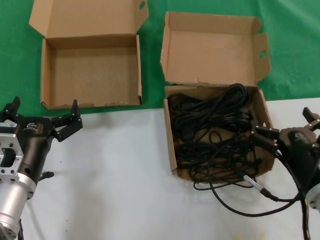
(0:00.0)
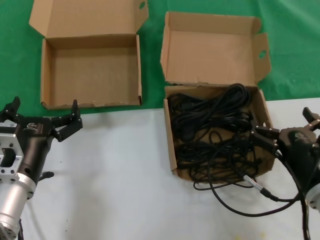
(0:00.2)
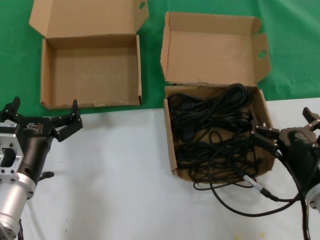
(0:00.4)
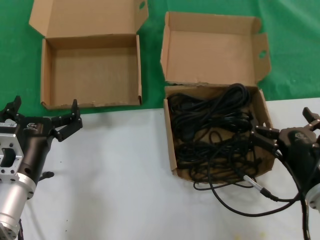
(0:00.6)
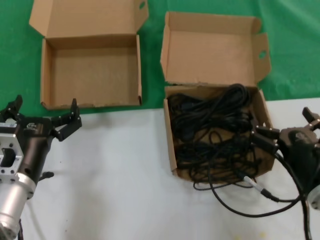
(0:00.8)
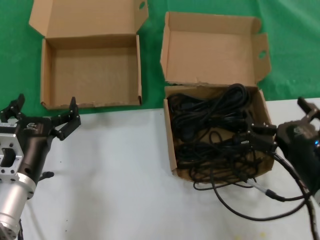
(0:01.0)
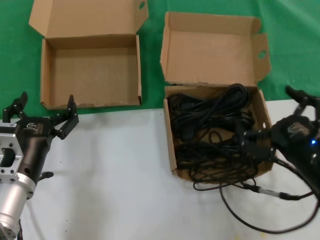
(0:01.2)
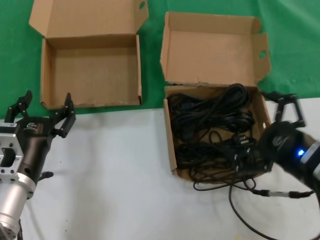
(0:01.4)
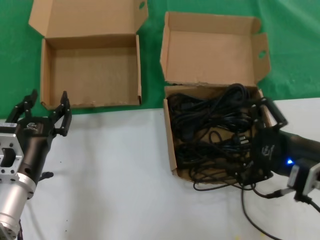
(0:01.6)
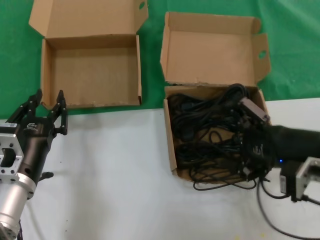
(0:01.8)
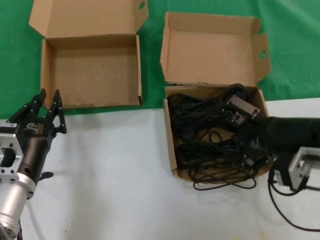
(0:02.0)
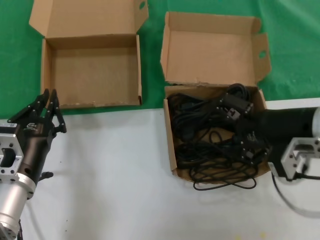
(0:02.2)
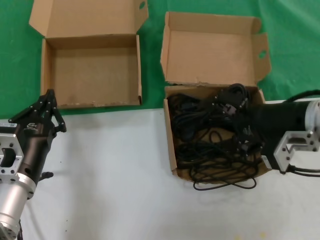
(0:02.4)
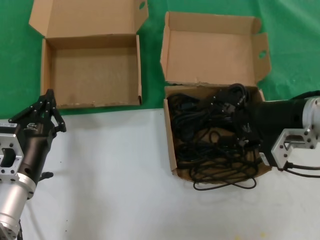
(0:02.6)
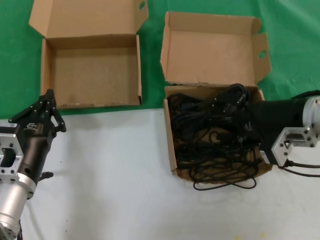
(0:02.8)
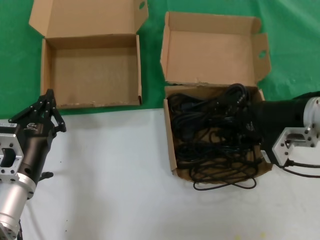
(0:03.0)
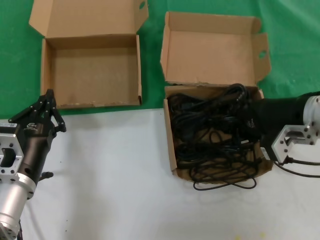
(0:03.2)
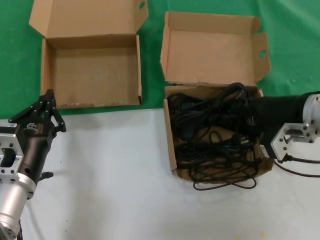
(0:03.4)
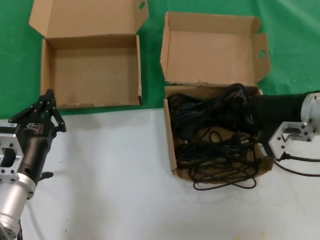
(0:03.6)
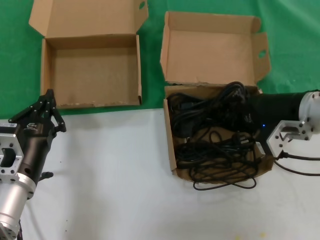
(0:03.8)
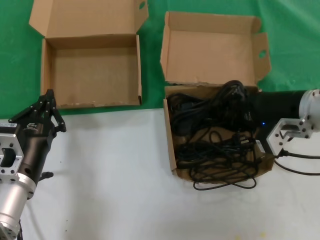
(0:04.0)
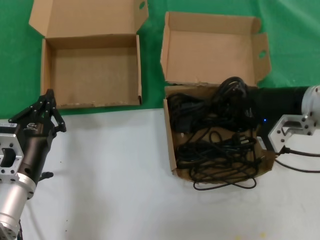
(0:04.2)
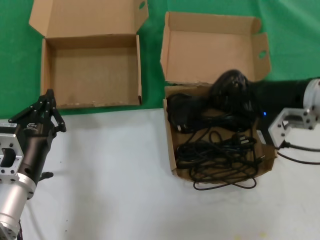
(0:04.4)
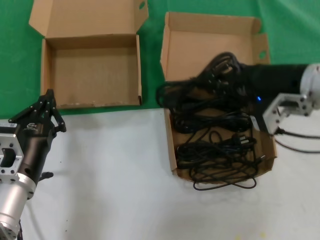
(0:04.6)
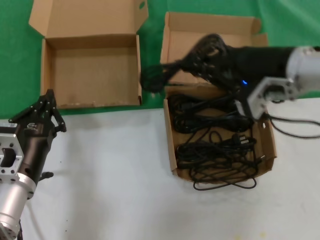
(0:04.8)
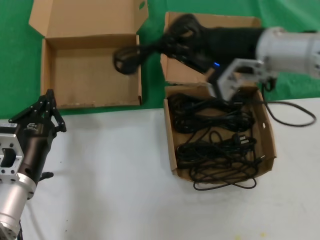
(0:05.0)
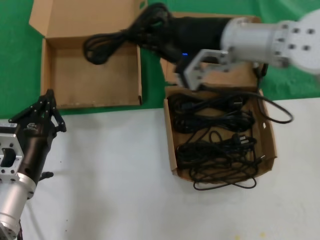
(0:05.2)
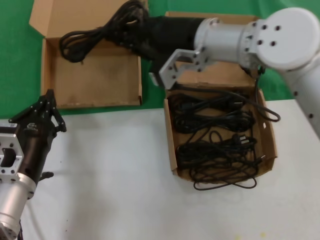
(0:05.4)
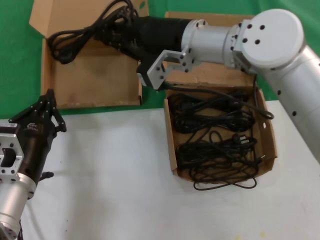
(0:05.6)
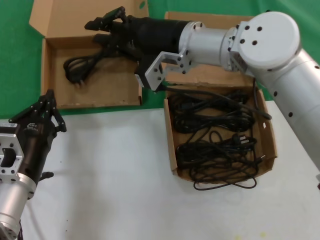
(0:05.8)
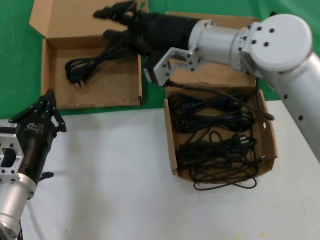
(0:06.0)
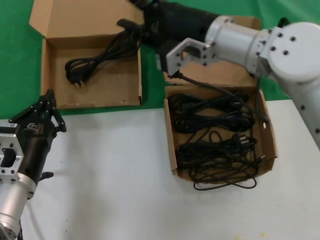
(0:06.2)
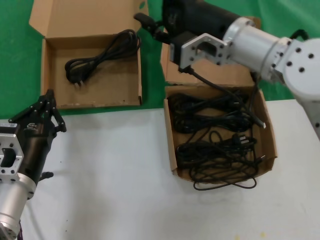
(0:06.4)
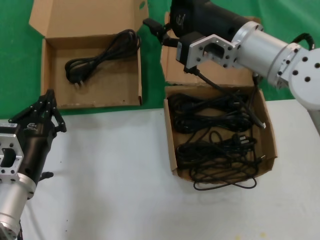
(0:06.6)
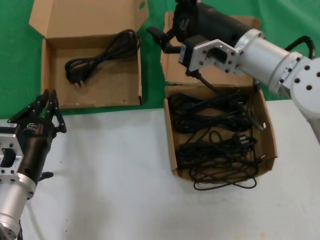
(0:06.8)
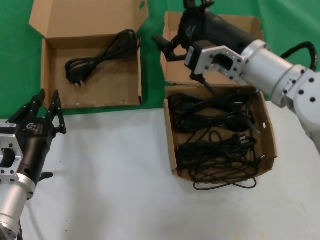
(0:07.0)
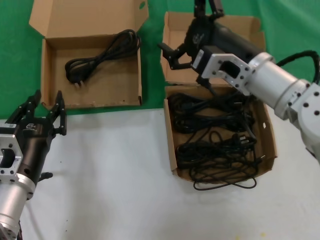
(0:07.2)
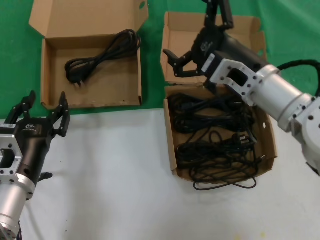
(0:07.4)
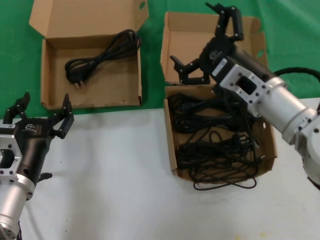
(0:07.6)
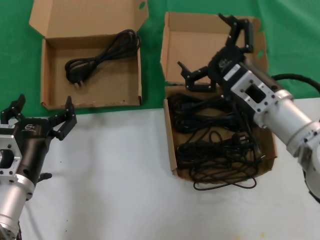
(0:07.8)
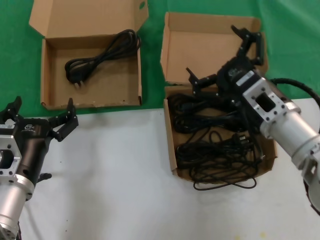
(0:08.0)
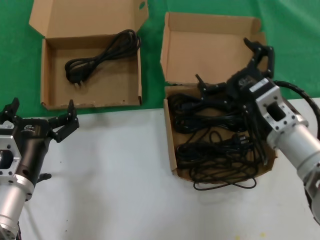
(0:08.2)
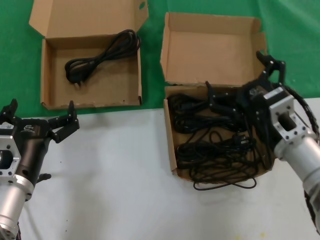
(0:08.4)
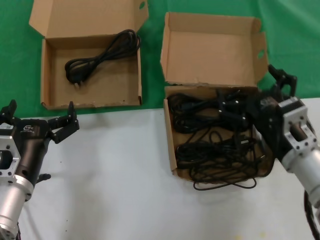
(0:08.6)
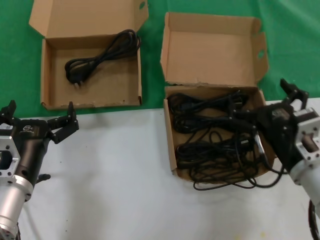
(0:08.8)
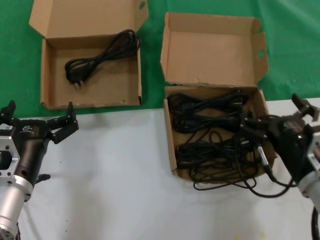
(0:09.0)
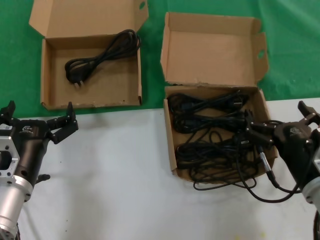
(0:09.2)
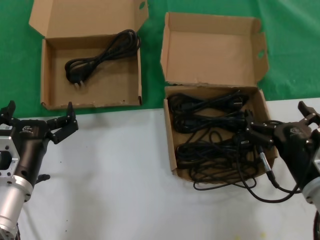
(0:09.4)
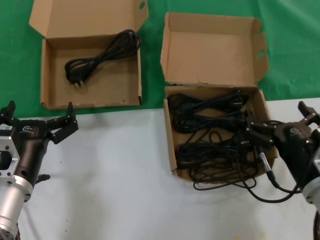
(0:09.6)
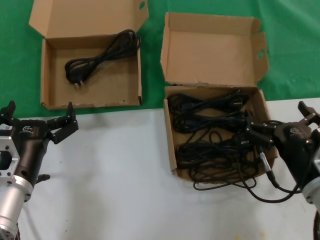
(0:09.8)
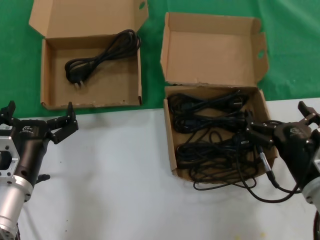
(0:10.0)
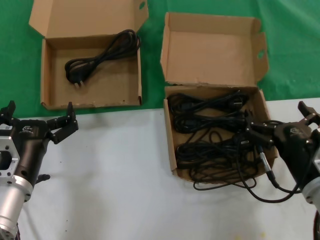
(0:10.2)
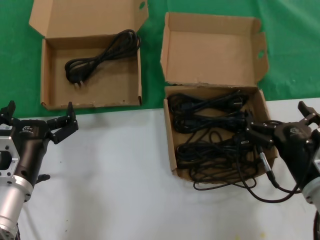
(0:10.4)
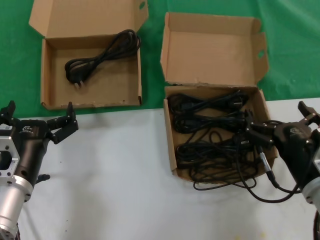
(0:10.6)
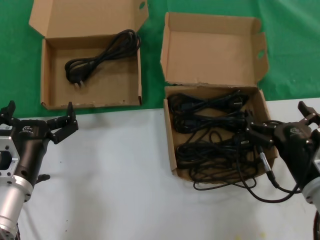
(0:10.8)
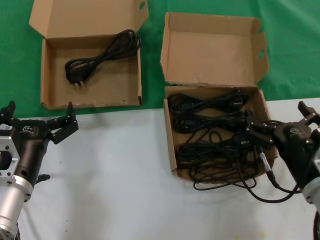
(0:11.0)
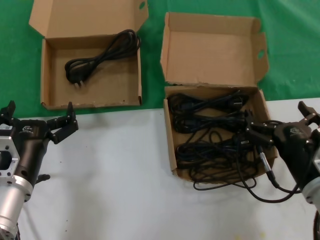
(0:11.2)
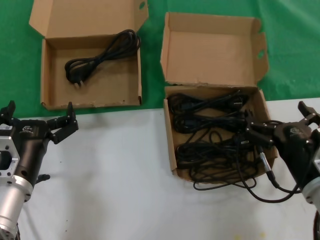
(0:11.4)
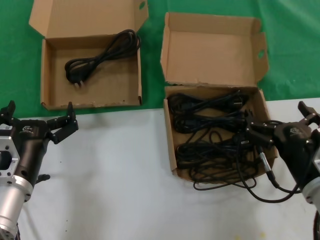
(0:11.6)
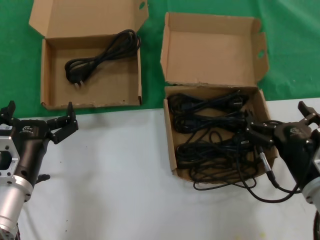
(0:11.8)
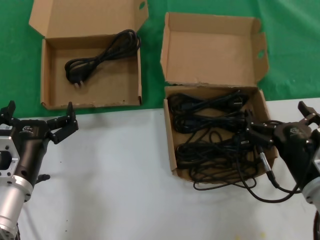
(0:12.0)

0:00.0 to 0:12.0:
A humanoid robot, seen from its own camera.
Task of the whole recording: take the parts from the box containing them and put them into an empty box.
Step, 0:00.0 to 0:03.2: Grasp the data cable.
Step, 0:03.4 to 0:05.8: Place the data cable in the another box.
0:00.0 to 0:01.6: The right hand moves upward, roughly 10 cm.
0:01.6 to 0:03.0: The right hand goes approximately 10 cm forward and upward.
0:03.0 to 0:04.4: The hands make only small movements.
0:04.4 to 0:06.0: The right hand moves to the left and forward, approximately 20 cm.
0:06.0 to 0:07.6: The right hand heads downward, to the right and backward, covering some 15 cm.
0:07.6 to 0:09.0: The right hand travels downward, backward and to the right by about 15 cm.
0:09.0 to 0:10.4: The hands make only small movements.
0:10.4 to 0:12.0: The two hands keep their place.

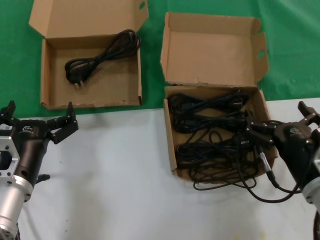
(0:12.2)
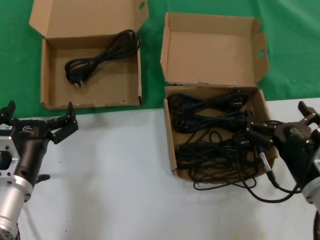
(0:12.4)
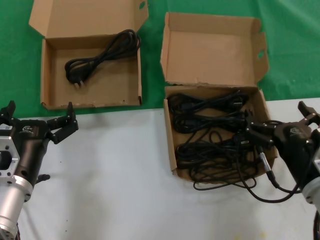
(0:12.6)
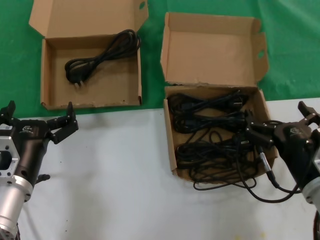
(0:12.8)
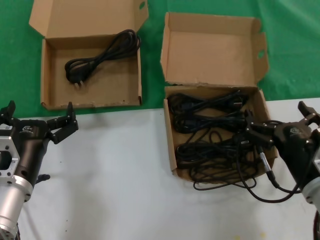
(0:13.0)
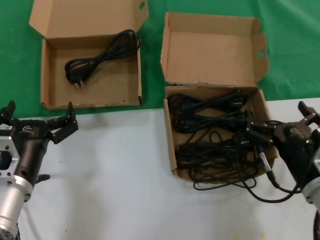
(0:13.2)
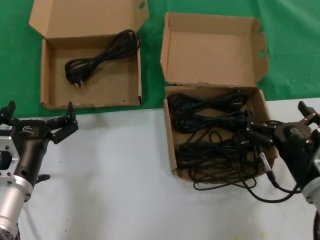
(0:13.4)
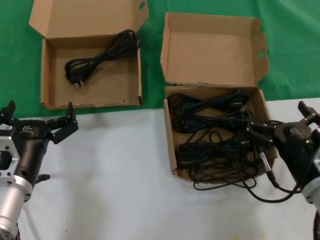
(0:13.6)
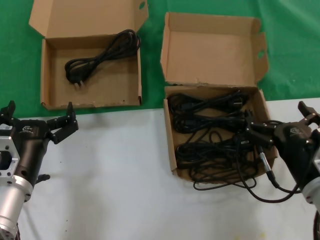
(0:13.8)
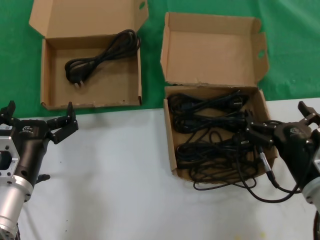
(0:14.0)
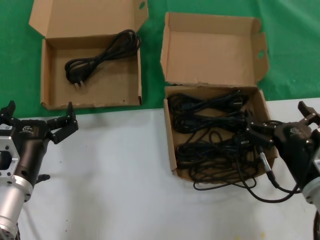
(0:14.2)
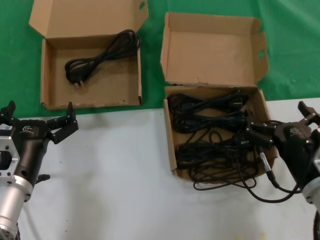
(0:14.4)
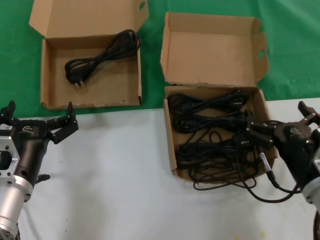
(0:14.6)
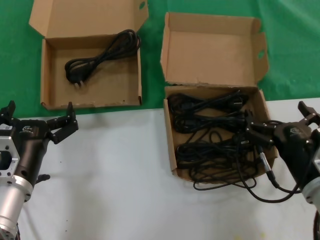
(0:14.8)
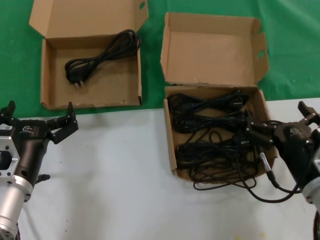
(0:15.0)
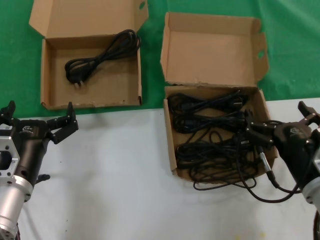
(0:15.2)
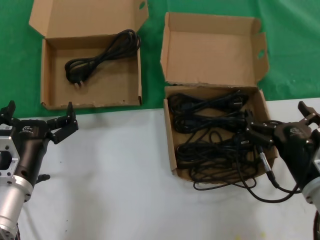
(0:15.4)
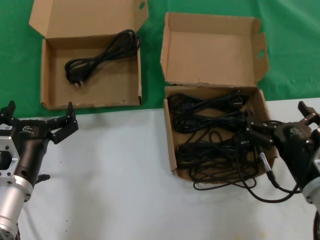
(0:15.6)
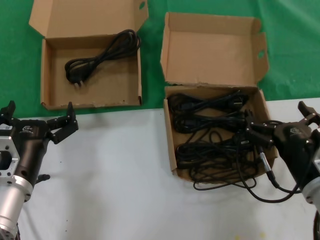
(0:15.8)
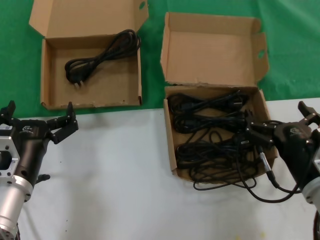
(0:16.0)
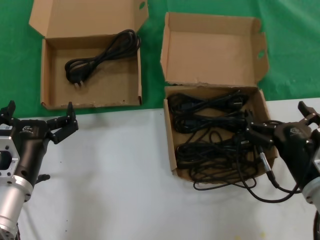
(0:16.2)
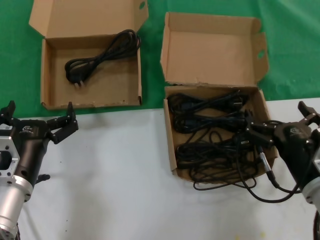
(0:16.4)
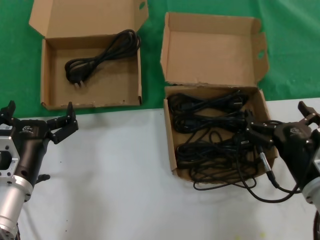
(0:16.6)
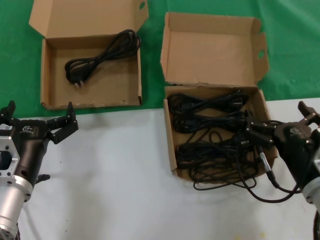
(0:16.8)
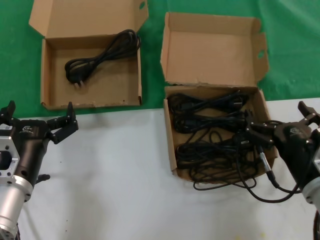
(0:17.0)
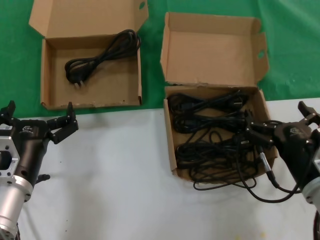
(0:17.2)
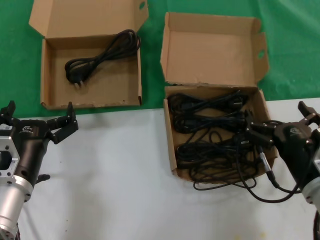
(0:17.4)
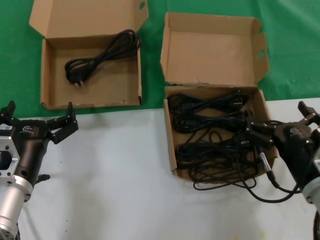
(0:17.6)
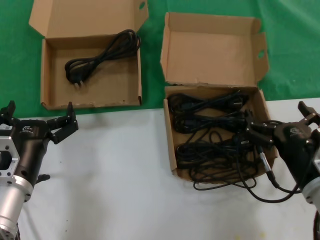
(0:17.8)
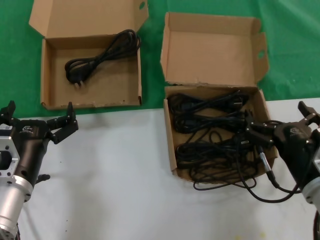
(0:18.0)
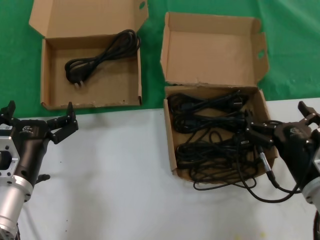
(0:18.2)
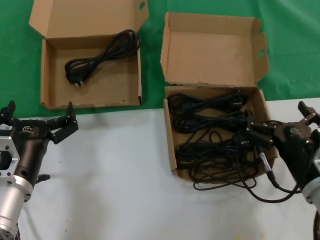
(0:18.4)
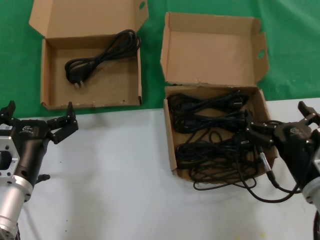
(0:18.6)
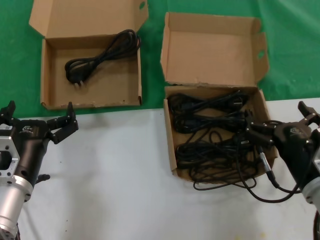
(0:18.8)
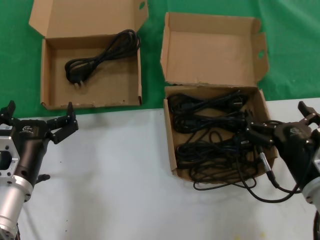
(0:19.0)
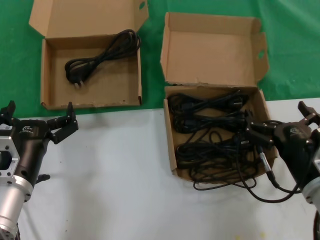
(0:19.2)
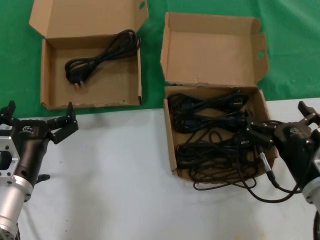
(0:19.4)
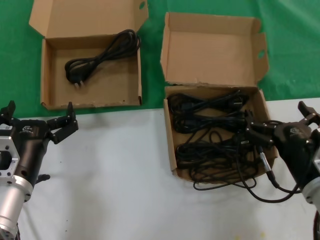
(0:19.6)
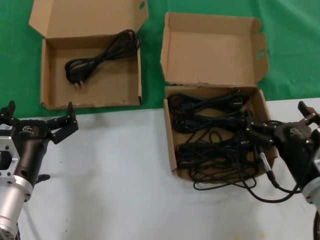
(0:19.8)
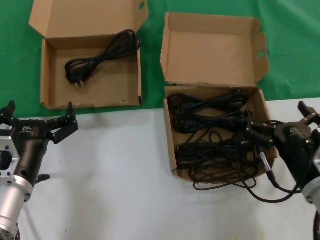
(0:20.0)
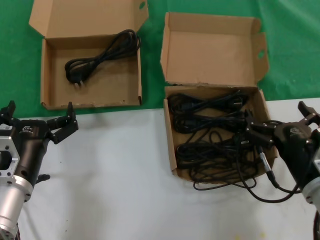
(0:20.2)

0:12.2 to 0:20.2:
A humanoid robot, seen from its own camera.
Task of the whole recording: take the parts from the box containing them and put them into an empty box.
0:12.2 to 0:20.2: Both hands stay put.

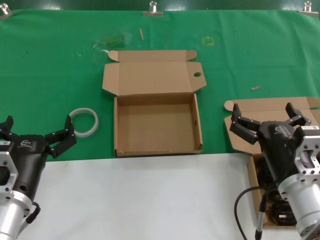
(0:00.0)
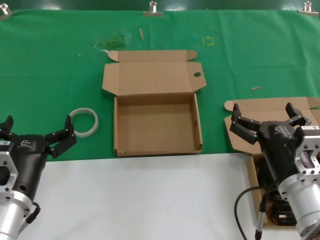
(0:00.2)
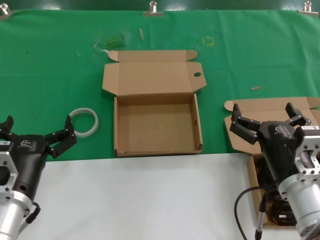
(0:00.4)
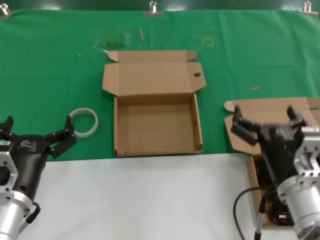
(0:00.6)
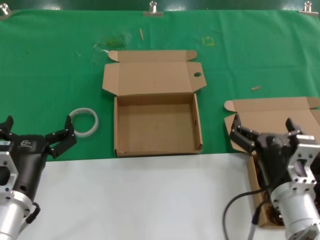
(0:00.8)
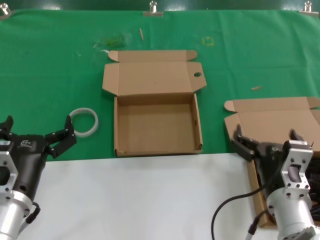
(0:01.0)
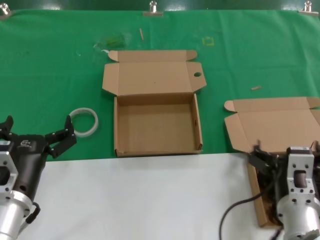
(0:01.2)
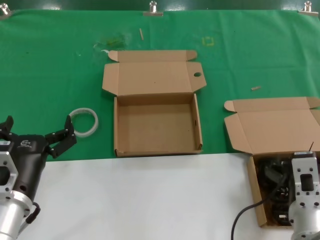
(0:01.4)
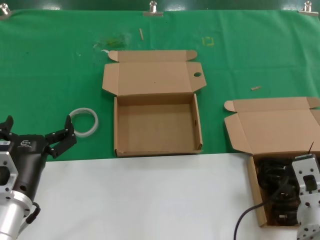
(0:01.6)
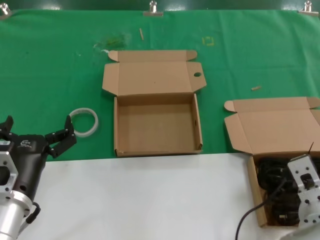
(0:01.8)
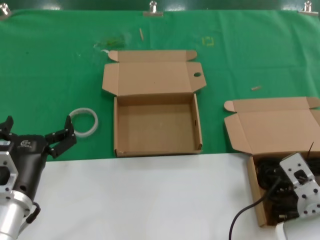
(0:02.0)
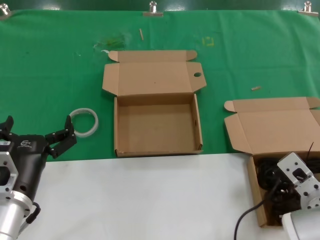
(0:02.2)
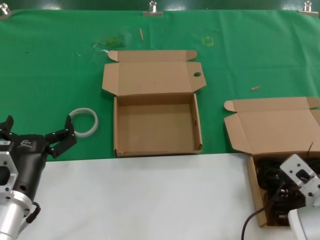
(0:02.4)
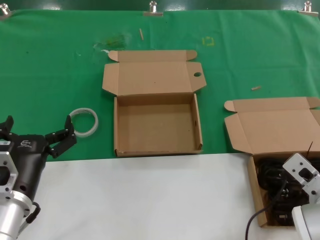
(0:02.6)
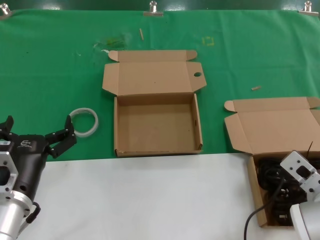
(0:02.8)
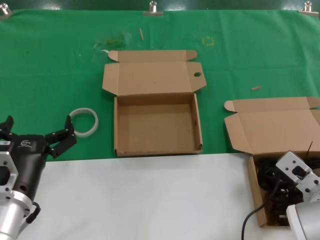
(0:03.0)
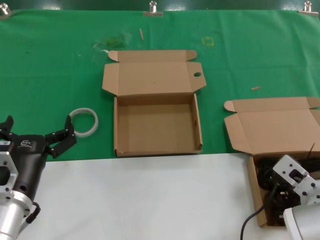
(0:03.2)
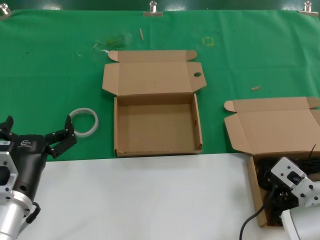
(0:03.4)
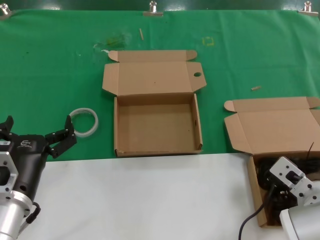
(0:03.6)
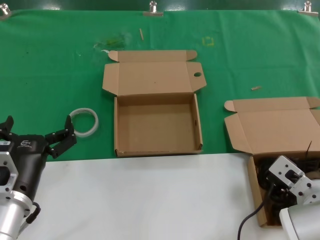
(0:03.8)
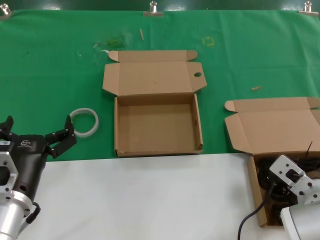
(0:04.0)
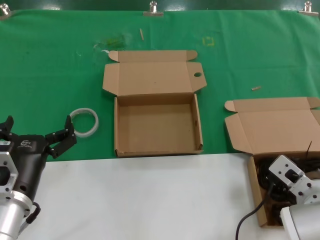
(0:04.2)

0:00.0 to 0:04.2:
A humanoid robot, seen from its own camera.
Task of the whole recording: take the parts from the box containing them and put them into an empty box.
Step, 0:00.0 to 0:03.4: Grasp the data cable.
0:01.4 to 0:02.8: The right hand shifts by some 5 cm.
0:02.8 to 0:04.2: The hands move only a little.
